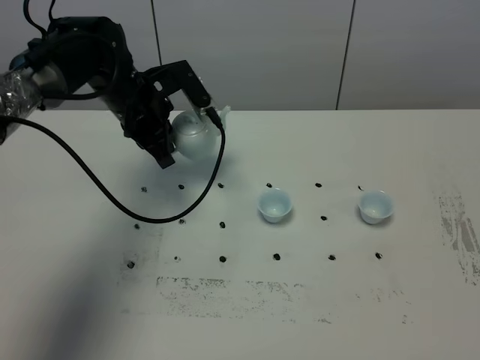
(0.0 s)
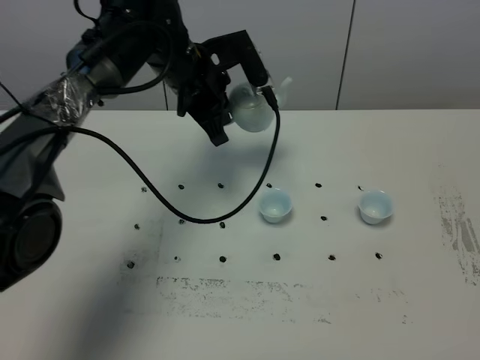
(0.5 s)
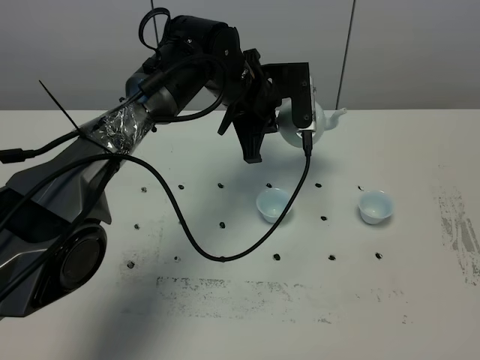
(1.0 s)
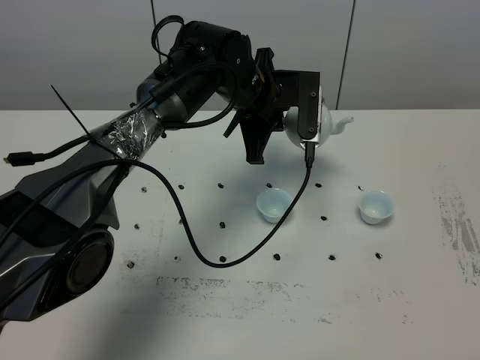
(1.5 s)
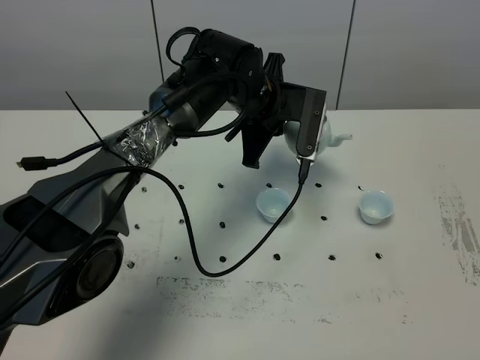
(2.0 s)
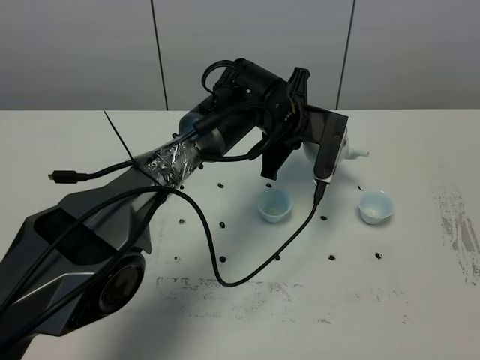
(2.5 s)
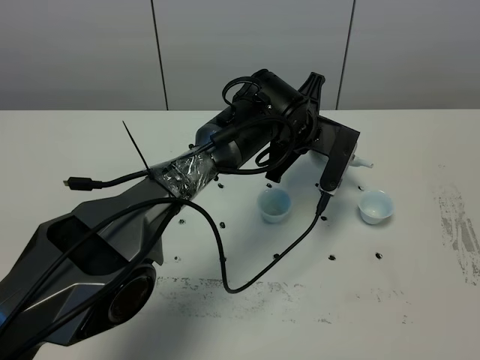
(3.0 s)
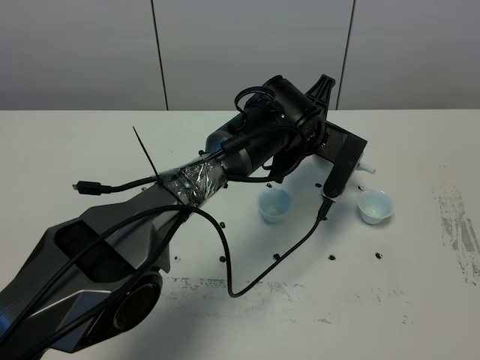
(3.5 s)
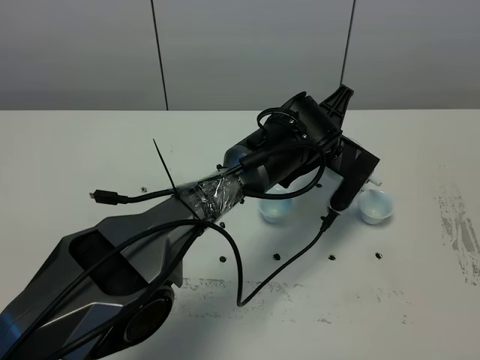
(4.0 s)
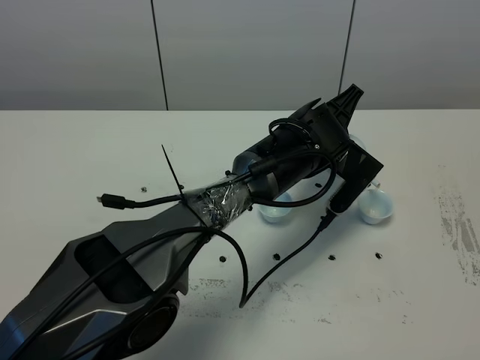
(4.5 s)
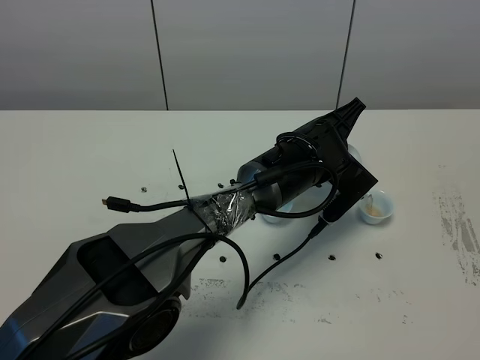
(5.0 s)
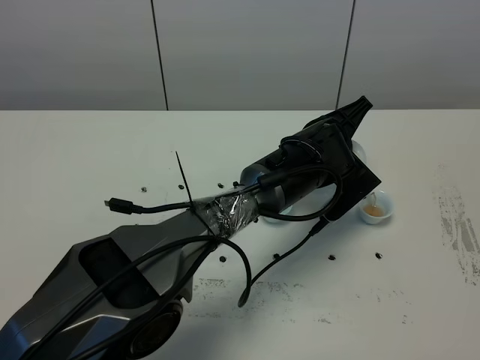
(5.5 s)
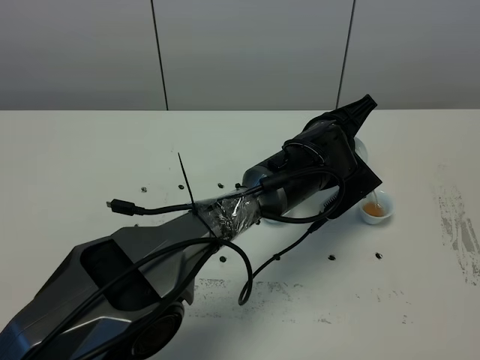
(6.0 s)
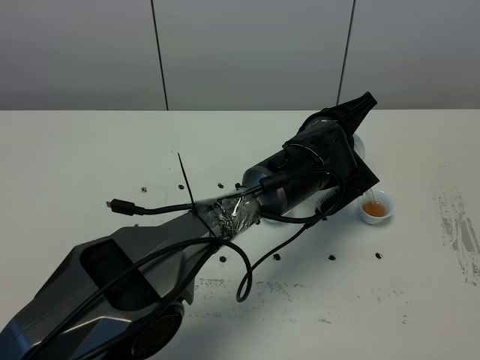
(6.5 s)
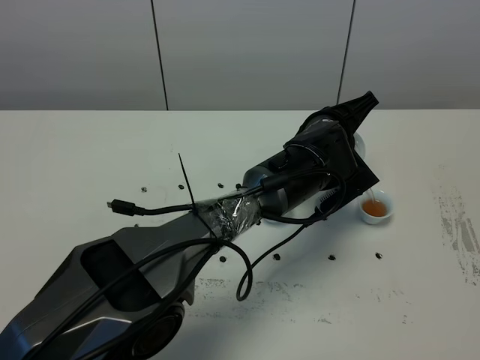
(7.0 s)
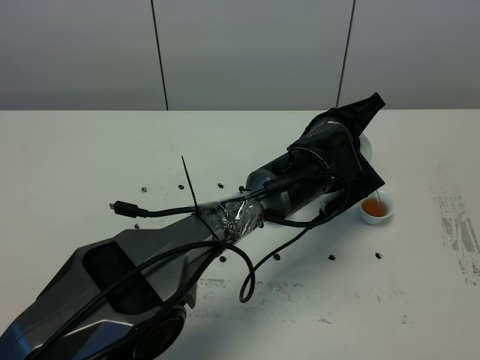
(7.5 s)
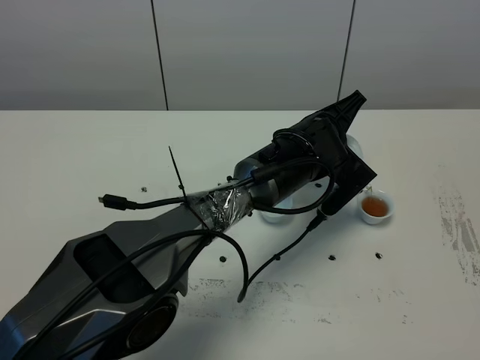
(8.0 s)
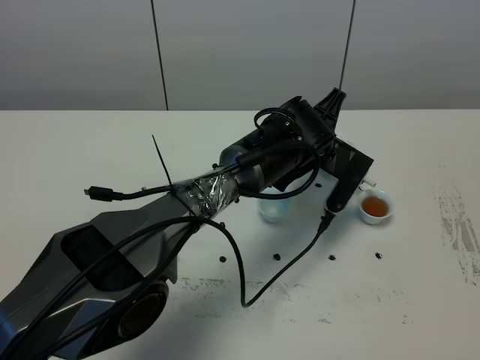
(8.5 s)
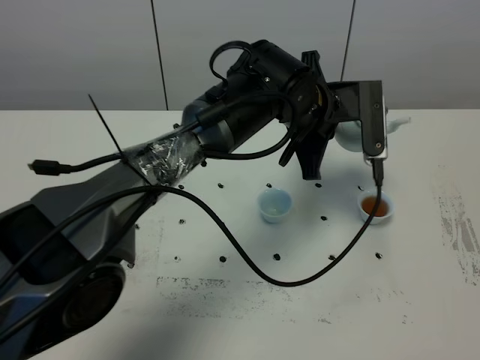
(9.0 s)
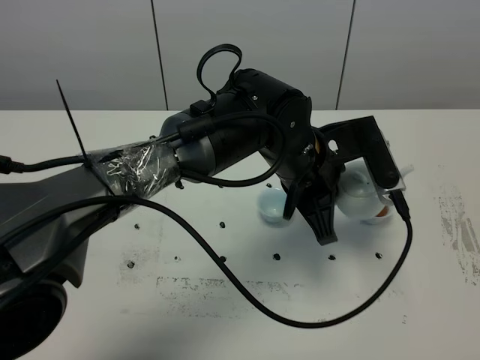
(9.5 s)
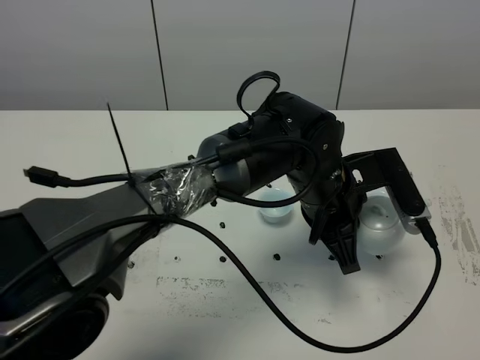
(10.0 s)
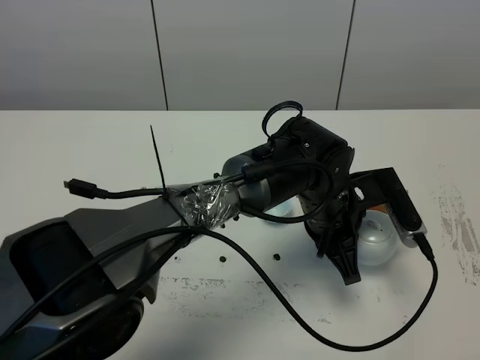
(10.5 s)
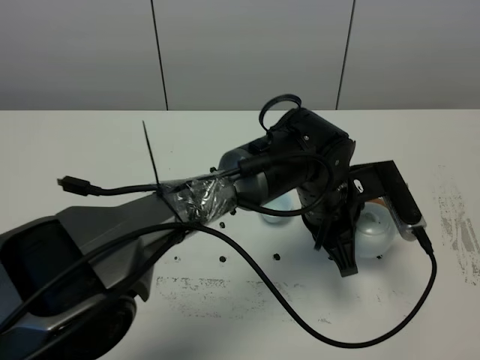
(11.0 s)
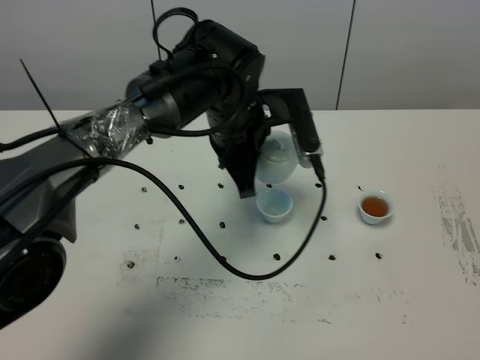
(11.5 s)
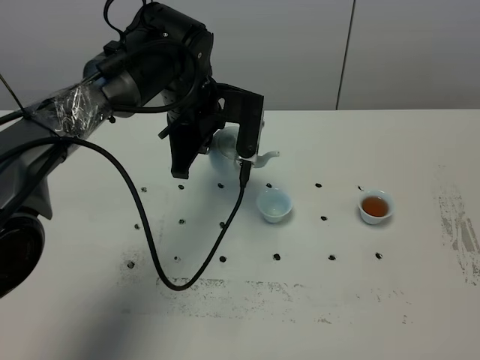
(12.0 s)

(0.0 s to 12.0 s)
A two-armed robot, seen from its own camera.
Task of the whole recording: grasp the blue porcelain teapot and pour the tea into the two blue porcelain teacups one by one, put the blue porcelain teapot back in its original place.
Step, 0.0 s - 8.0 s: Pour tea into the teacup with the left gripper.
0.0 s - 2.0 s: The left gripper heads to the right, covering about 15 cm.
2.0 s - 4.0 s: The left gripper moves to the right, about 10 cm.
4.0 s - 6.0 s: The grippers make only small movements.
6.0 s - 8.0 s: The grippers make only small movements.
8.0 s - 10.0 s: The left gripper is displaced backward by about 10 cm.
10.0 s - 12.0 s: The left gripper travels to the left and forward by roughly 20 cm.

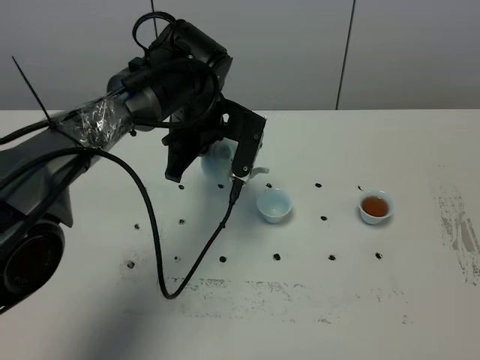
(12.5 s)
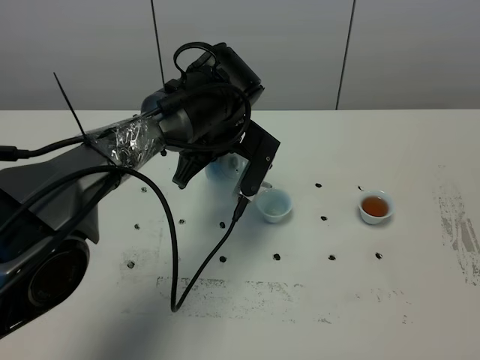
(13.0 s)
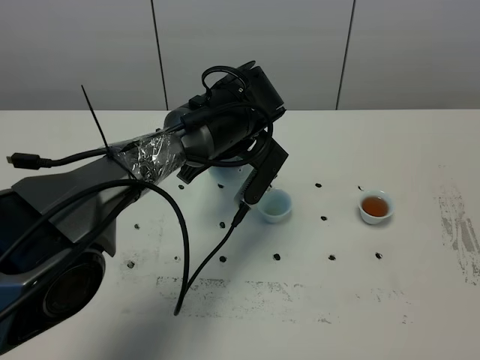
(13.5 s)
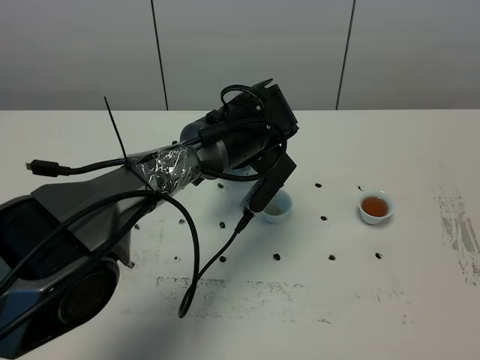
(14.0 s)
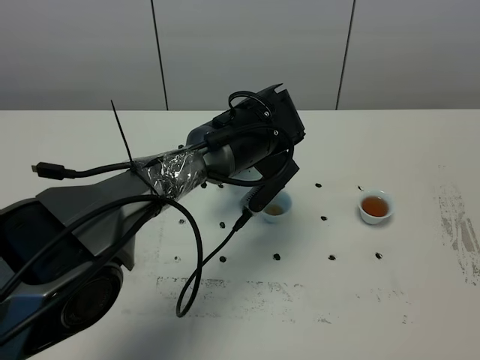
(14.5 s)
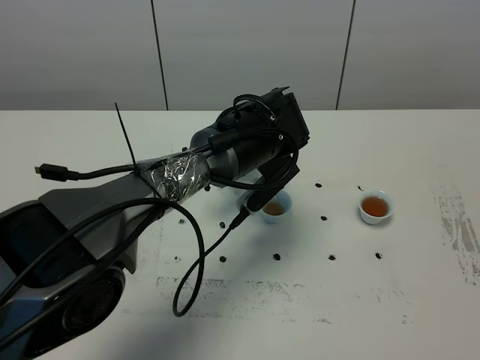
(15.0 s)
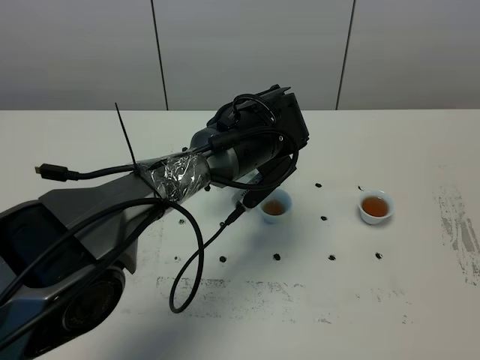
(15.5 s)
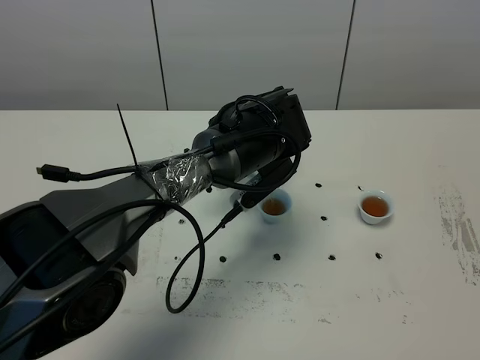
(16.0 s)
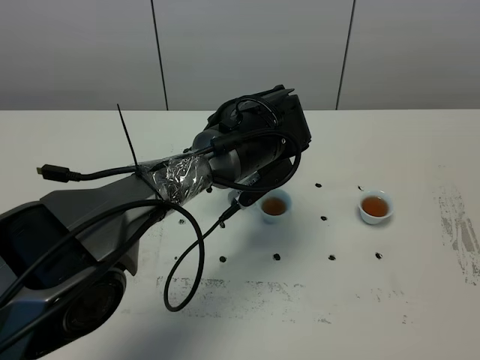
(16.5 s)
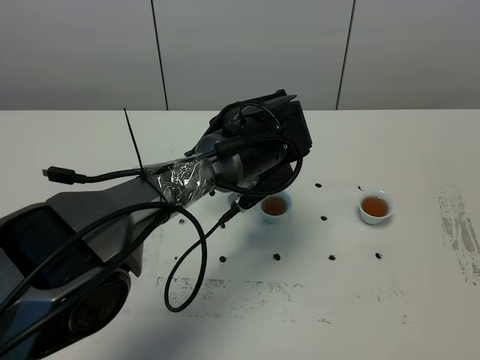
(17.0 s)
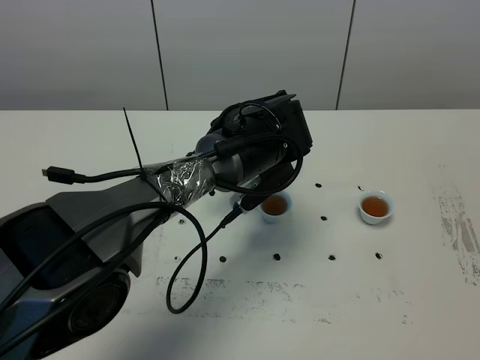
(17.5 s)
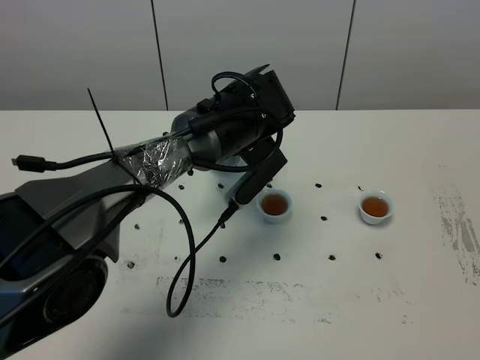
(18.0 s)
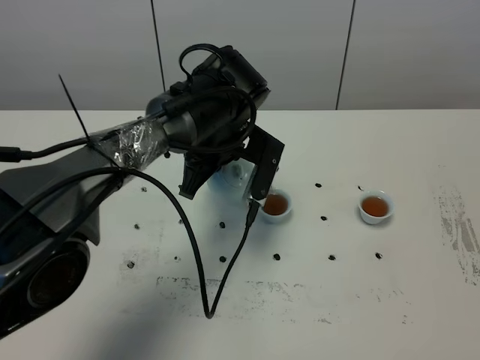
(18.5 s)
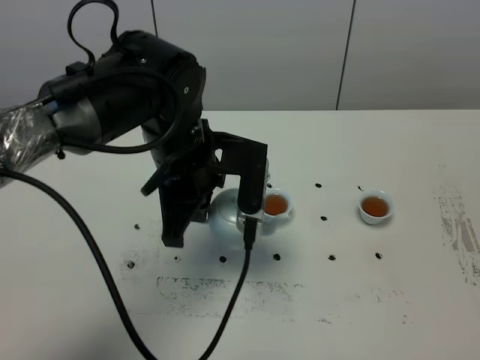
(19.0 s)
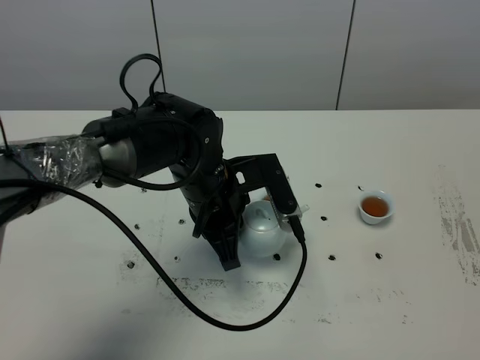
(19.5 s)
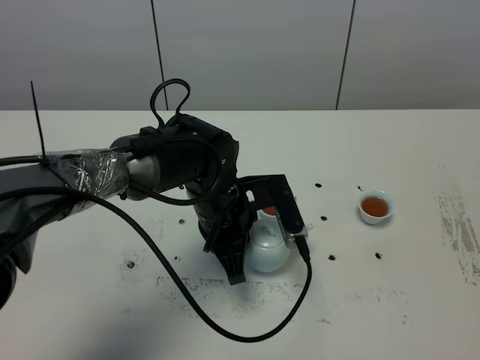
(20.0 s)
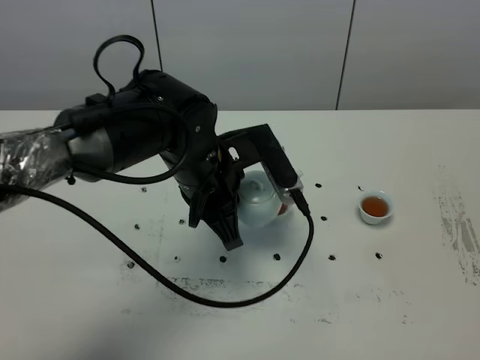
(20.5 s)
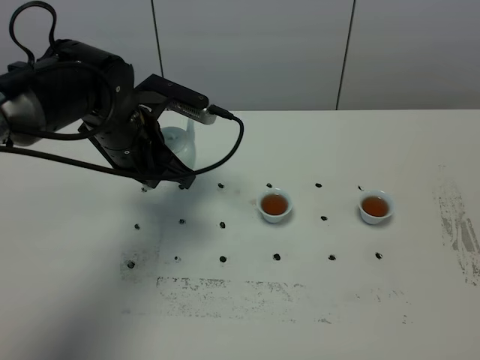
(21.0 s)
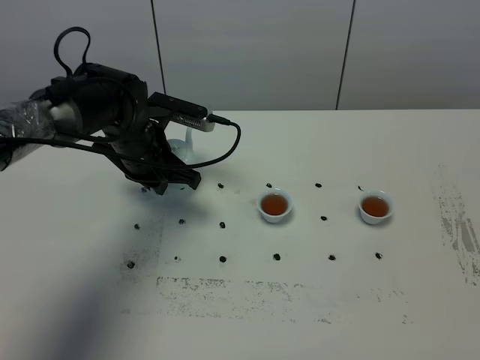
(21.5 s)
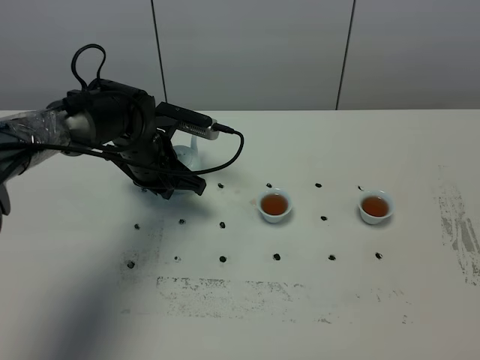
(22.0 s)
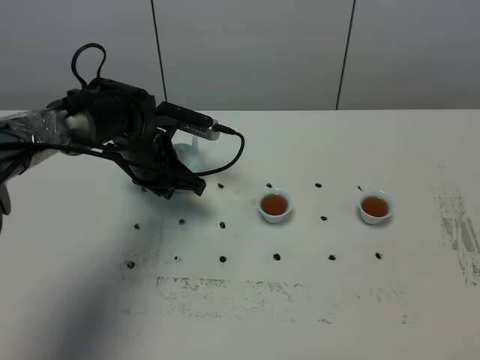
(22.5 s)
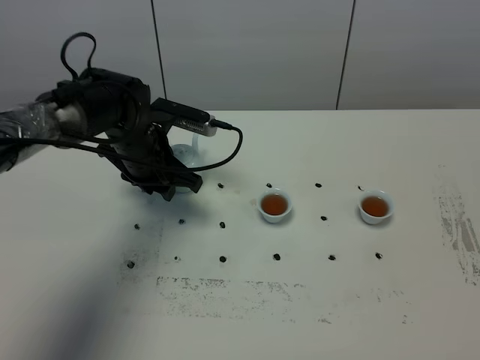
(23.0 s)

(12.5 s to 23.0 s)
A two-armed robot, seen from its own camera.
Task of the whole recording: grasp the blue porcelain teapot and pour the tea into the two blue porcelain teacups one by one, put the blue porcelain teapot back in its original place.
Step, 12.5 s - 18.0 s: Pour tea into the teacup with the left gripper.
12.5 s - 14.5 s: The left gripper goes about 5 cm to the right.
14.5 s - 16.5 s: The grippers move only a little.
16.5 s - 19.0 s: The left gripper is displaced backward and to the left by approximately 10 cm.
19.0 s - 21.0 s: The left gripper travels to the left and forward by about 10 cm.
21.0 s - 23.0 s: The left gripper opens its fingers.

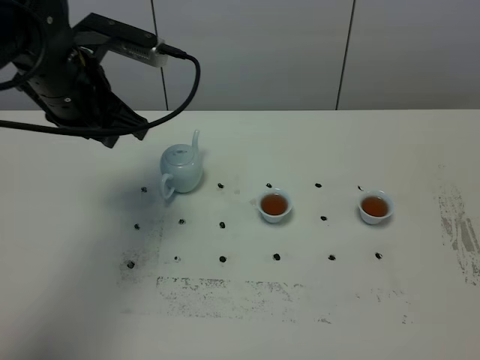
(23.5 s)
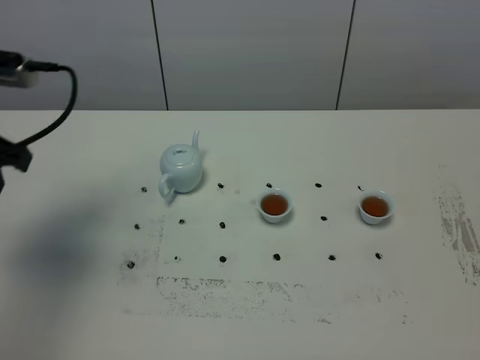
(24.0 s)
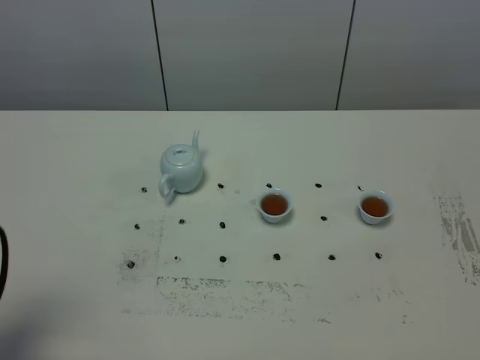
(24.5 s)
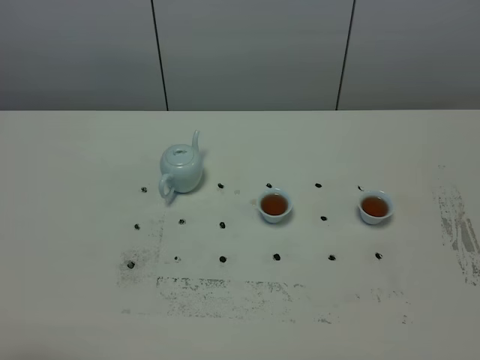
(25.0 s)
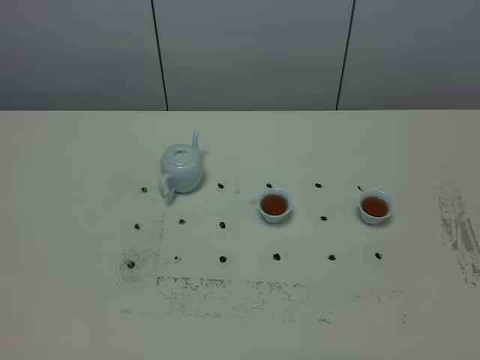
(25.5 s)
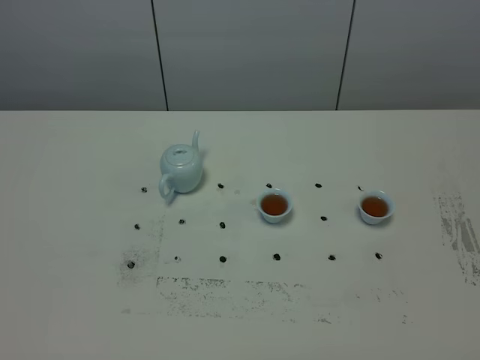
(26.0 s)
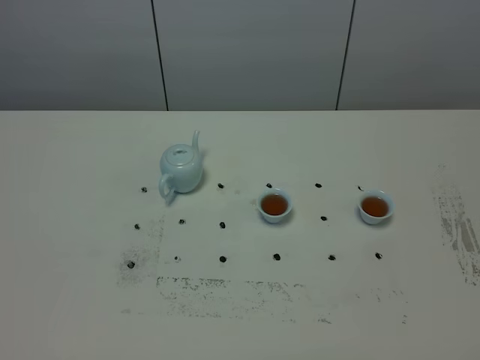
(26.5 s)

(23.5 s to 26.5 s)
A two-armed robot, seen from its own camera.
Task of the whole recording: grasp the blue porcelain teapot and pour the tea into the two blue porcelain teacups one by one, put the blue porcelain teapot back in its original place.
23.5 s - 25.0 s: The left gripper goes roughly 30 cm backward.
